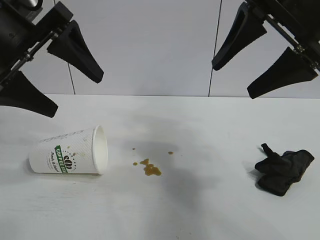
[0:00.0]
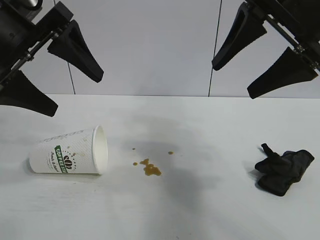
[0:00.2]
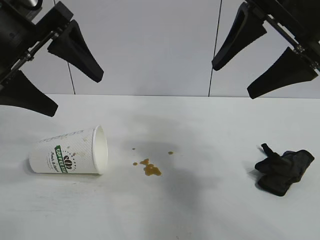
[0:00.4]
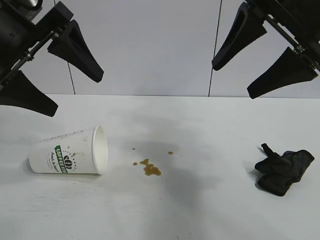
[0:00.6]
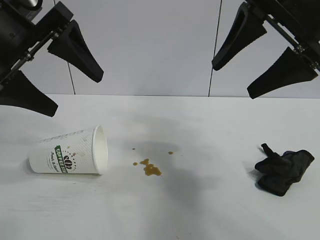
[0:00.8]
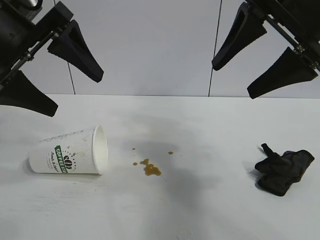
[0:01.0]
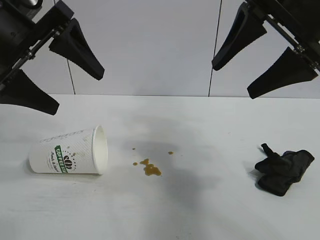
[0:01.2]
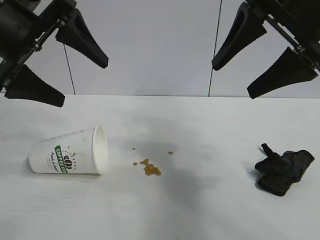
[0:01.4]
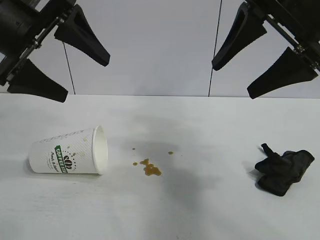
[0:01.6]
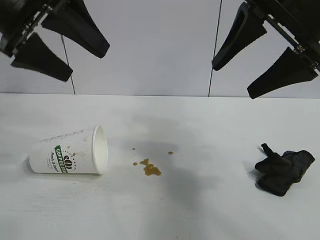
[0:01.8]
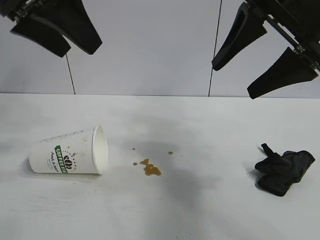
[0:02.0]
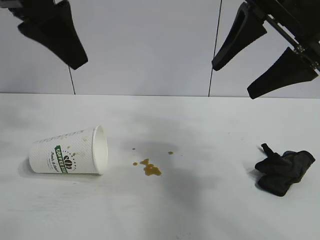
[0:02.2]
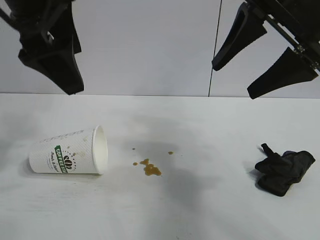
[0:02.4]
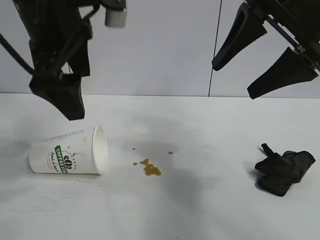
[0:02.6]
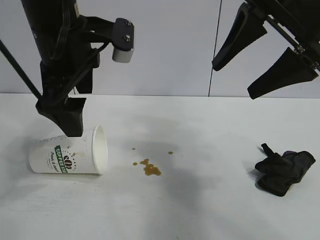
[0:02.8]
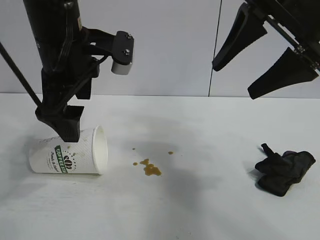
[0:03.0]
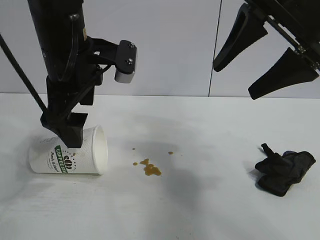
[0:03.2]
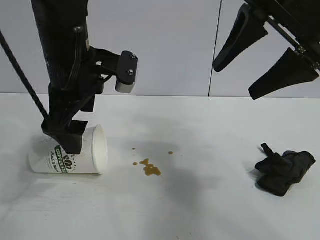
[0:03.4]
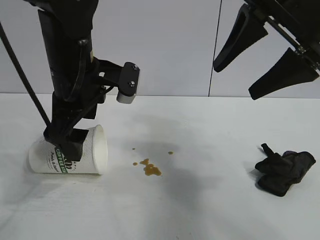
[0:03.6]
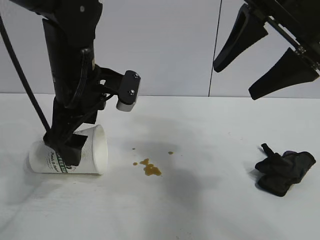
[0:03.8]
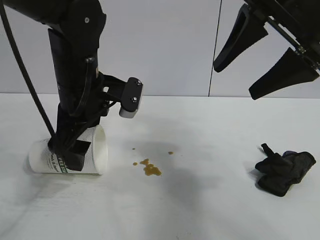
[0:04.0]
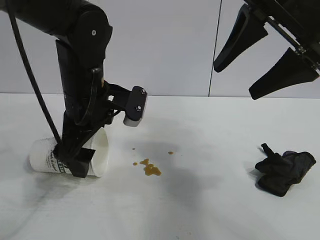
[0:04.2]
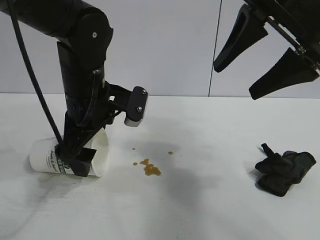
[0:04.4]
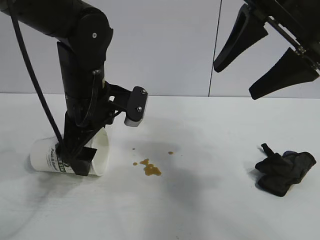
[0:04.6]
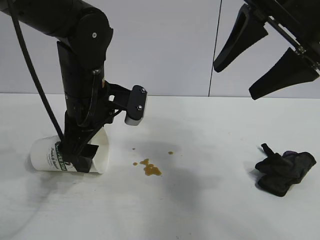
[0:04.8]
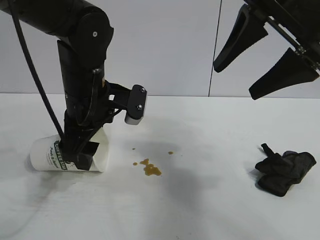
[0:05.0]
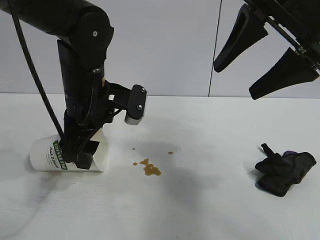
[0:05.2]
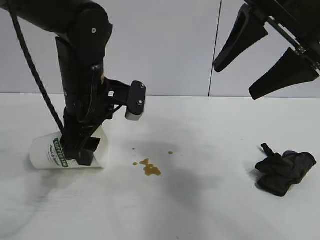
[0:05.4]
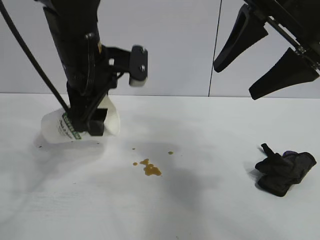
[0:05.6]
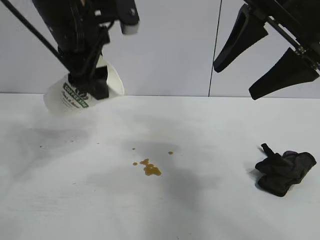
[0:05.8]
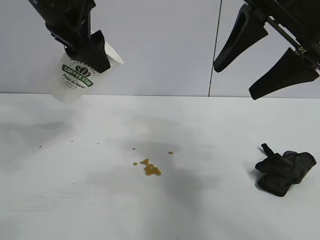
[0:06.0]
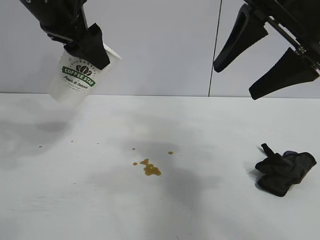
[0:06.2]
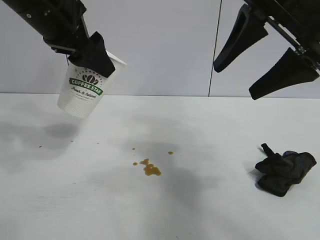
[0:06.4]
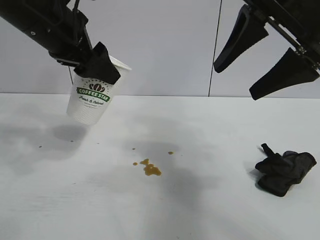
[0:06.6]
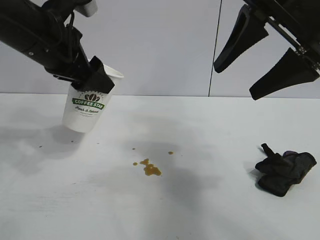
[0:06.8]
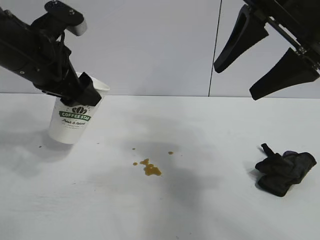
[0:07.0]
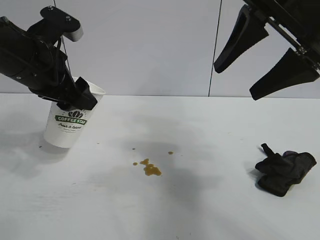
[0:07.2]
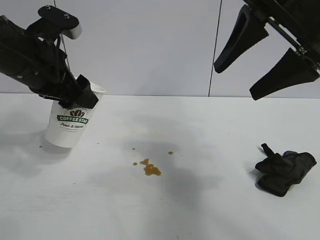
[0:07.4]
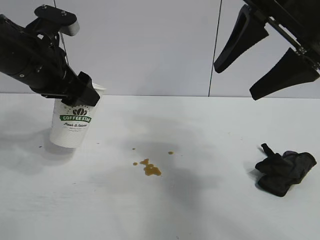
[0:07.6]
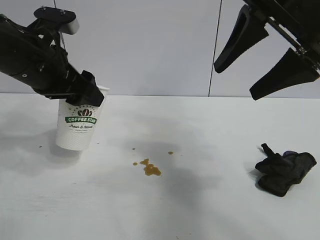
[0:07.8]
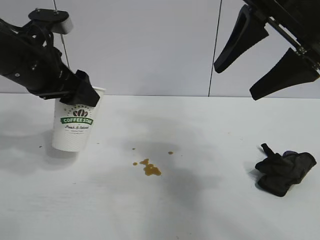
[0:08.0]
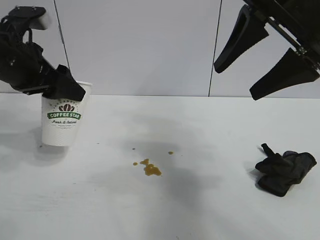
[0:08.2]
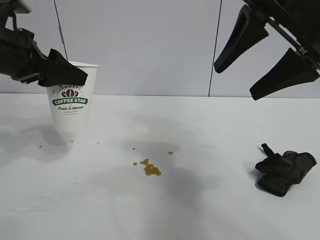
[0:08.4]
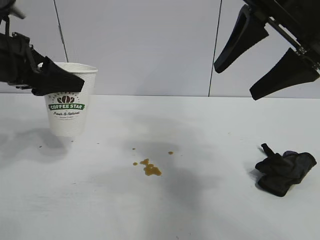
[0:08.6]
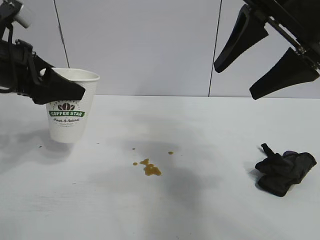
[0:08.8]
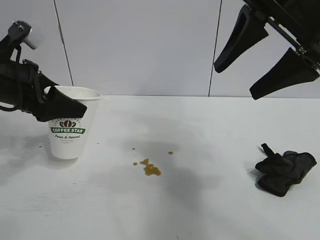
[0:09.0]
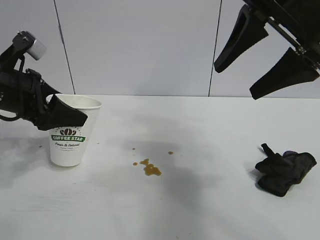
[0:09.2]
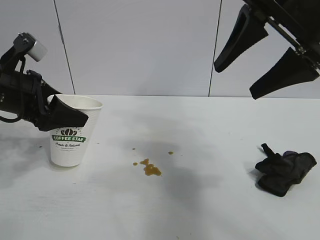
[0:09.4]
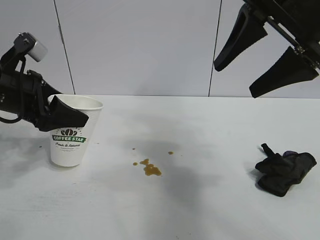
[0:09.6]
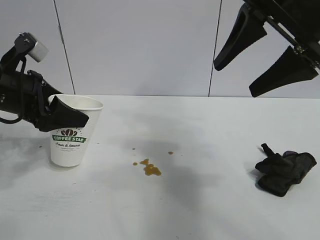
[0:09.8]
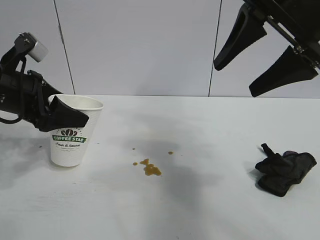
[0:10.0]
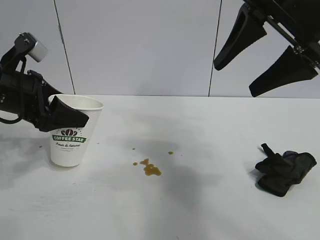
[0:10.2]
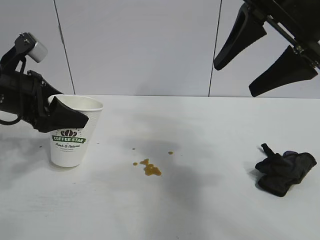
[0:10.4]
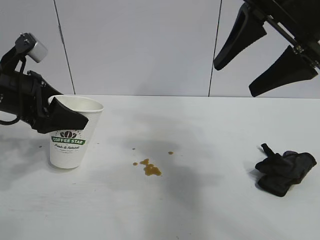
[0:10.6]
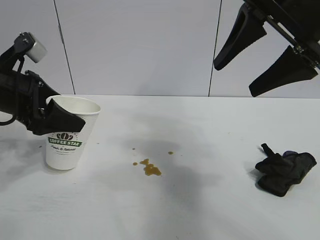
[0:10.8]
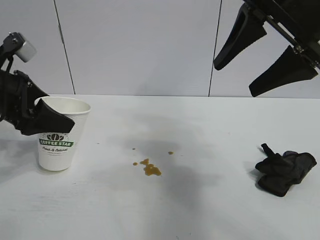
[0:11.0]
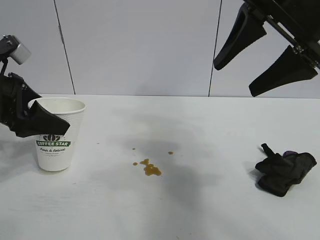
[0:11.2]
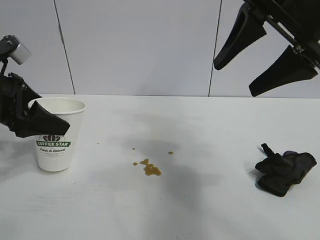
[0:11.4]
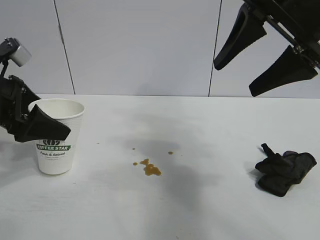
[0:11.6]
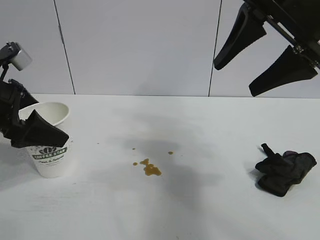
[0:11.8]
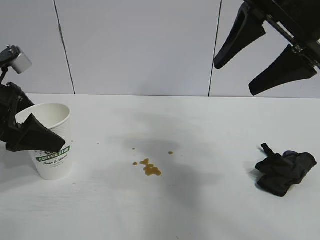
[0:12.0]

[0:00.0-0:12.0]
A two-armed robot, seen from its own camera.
Task of the whole recording: the left gripper pick up the fallen cup and place it upright, the right gripper grasp the black rag and wipe the stain on the table, the right gripper put the black rag back in its original position.
Step, 0:01.2 to 0:05.2: Grasp the paper cup with left gripper.

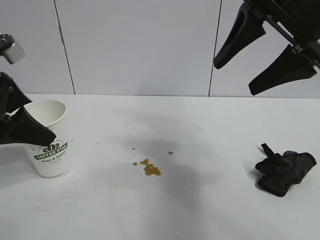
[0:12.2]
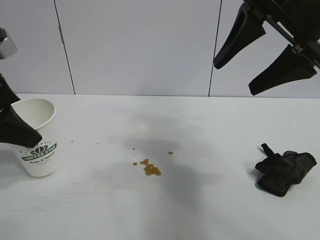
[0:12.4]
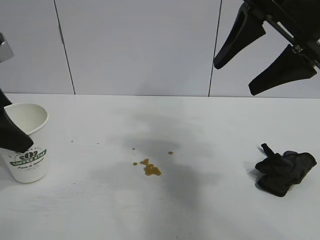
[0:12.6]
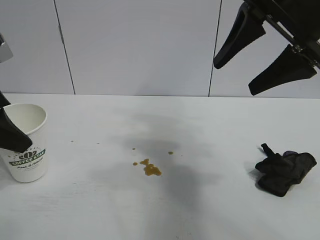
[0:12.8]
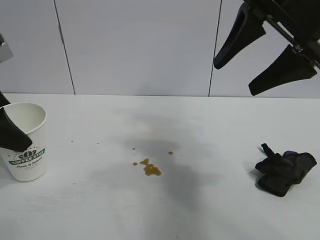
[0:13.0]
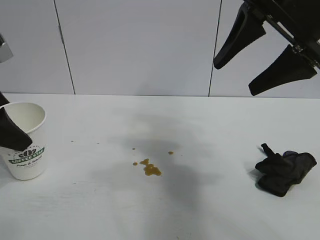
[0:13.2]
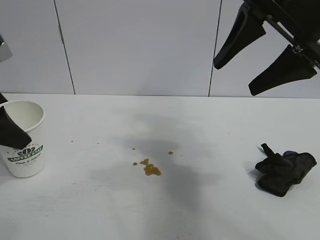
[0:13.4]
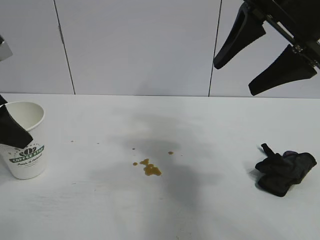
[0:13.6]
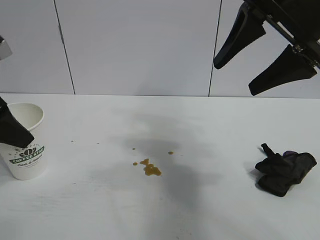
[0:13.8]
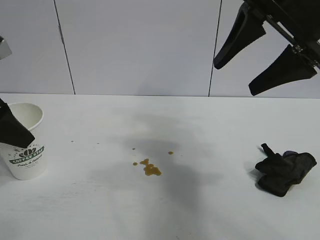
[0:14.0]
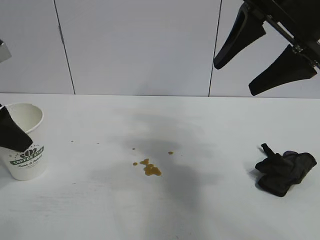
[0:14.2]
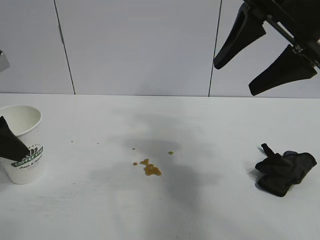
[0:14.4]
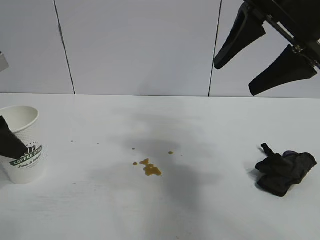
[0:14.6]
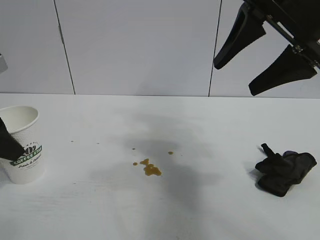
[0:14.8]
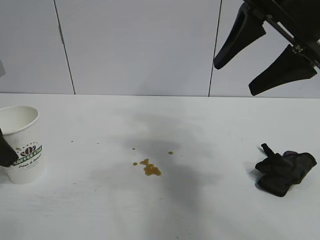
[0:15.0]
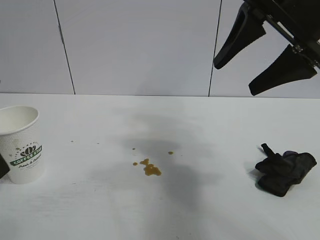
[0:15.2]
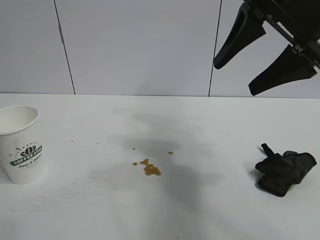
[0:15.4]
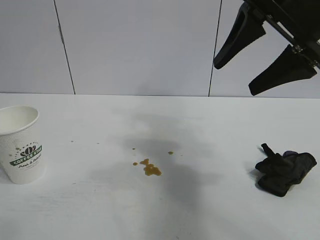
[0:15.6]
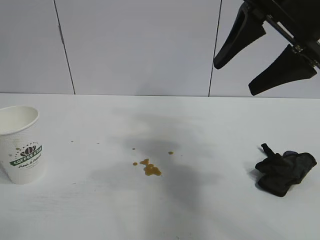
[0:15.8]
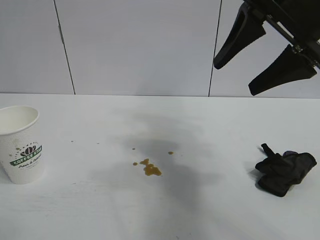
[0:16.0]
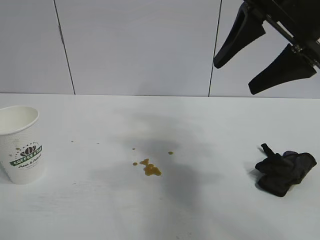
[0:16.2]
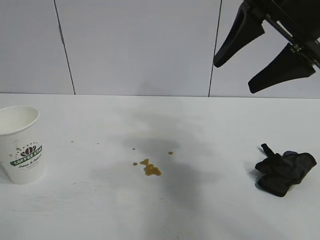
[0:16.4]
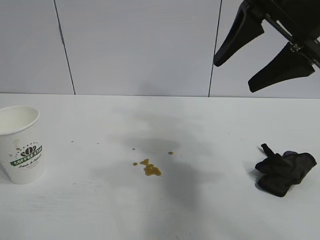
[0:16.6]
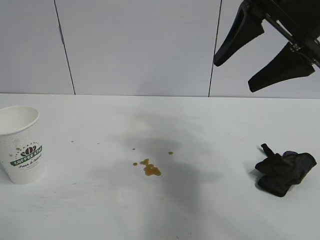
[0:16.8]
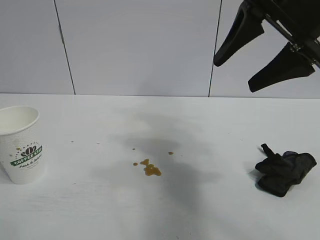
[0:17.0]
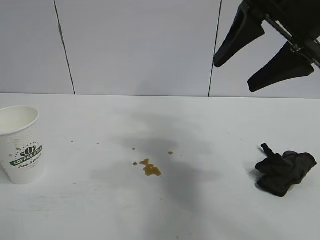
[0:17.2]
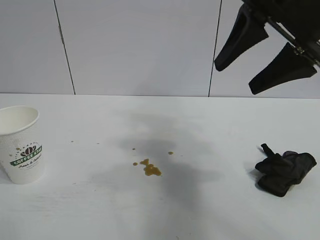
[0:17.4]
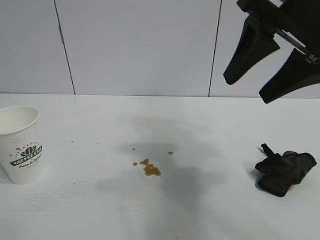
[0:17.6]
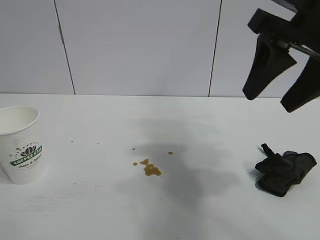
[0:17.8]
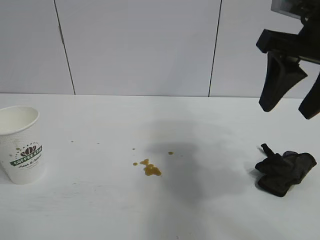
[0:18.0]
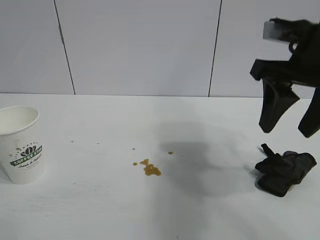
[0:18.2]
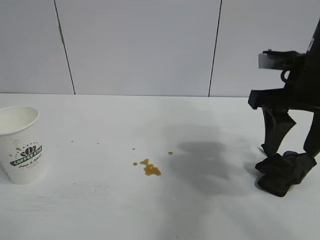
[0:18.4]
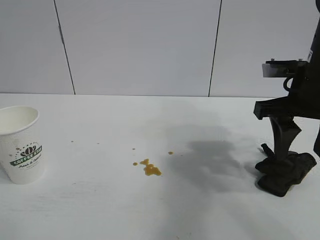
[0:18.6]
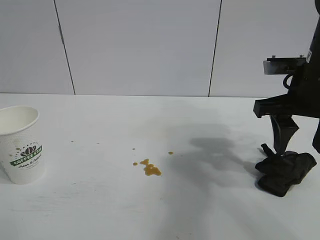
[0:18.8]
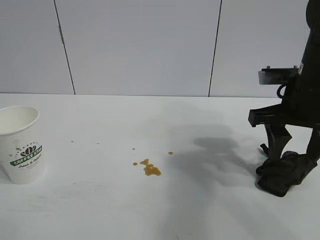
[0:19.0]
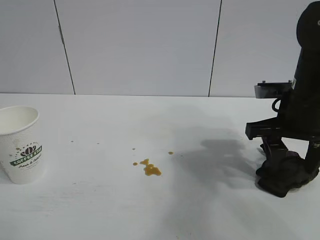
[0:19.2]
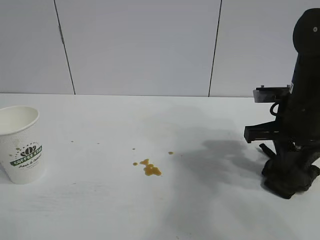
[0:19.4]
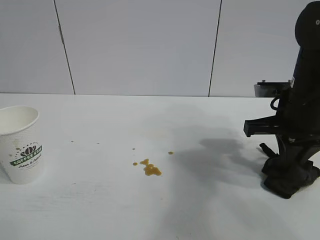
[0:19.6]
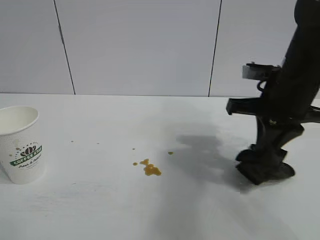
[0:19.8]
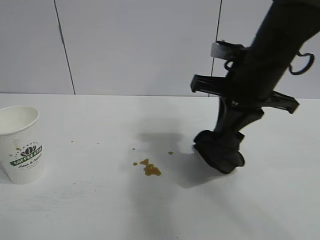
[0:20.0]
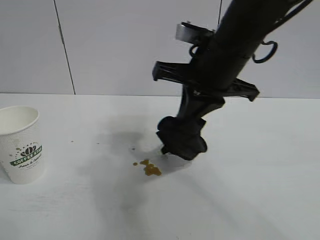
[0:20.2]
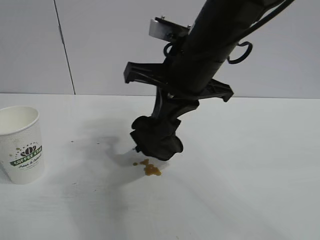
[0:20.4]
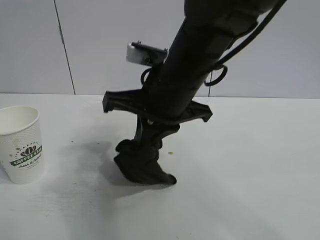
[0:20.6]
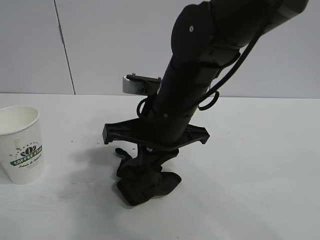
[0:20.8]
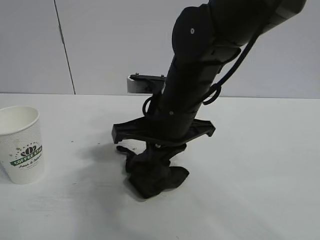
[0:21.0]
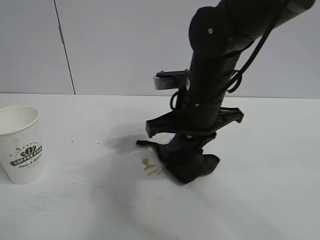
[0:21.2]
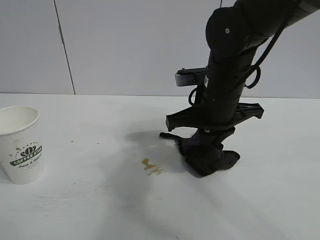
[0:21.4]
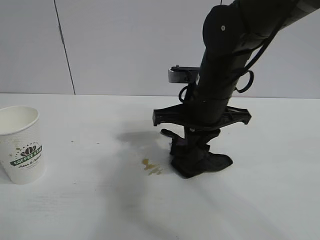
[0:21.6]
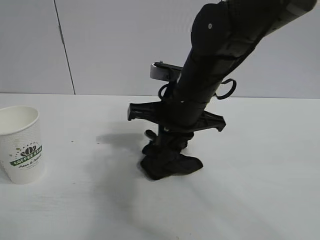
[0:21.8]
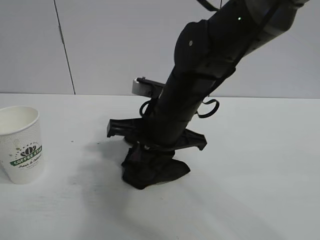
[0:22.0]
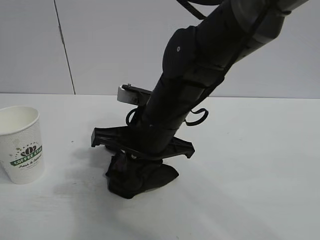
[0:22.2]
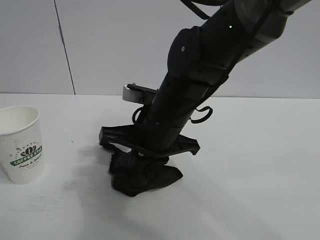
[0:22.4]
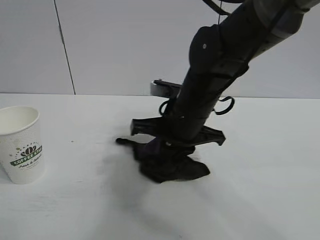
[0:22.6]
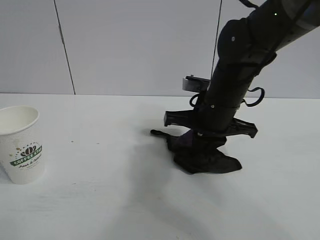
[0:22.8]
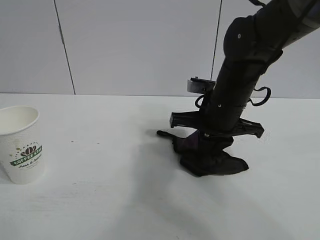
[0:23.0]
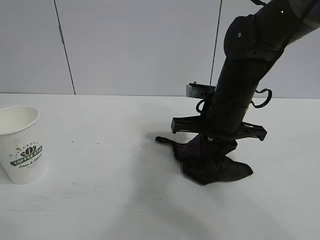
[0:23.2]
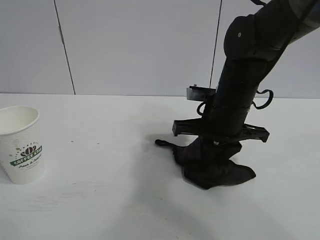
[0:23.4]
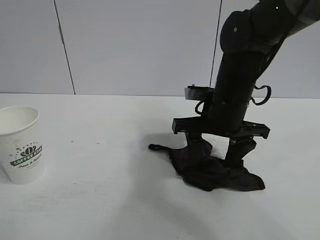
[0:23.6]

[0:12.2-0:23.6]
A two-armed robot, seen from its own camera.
Task of the whole recording: the left gripper pick up the fallen cup and place it upright, the right gripper grasp the black rag and wipe the stain on the table, the right gripper put the black rag back in its original position.
Step, 0:12.2 to 0:14.4: Stand the paper cup upright with left gripper.
Step, 0:14.8 to 0:19.4: Grasp the rag with right gripper.
Step, 0:19.6 to 0:22.8: Wipe the stains off the table with the rag with right gripper.
Step, 0:23.0 to 0:23.4: Place the rag on the table with right gripper.
